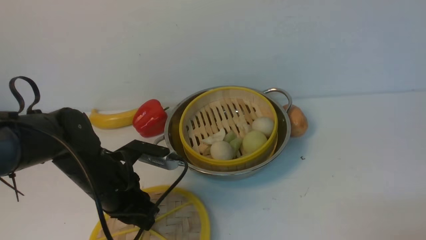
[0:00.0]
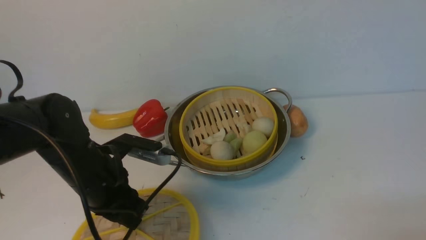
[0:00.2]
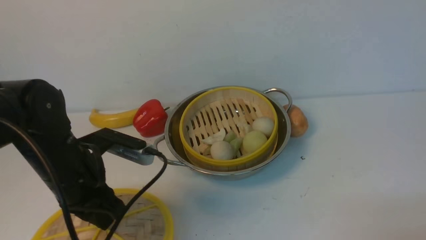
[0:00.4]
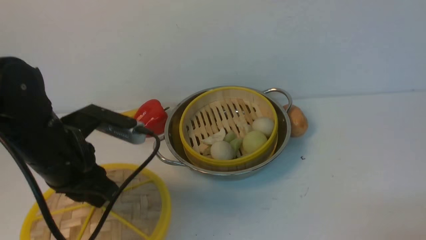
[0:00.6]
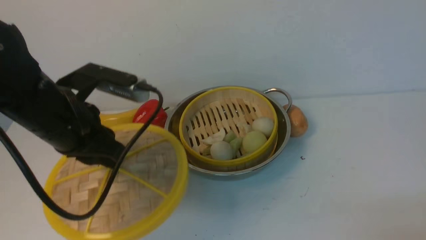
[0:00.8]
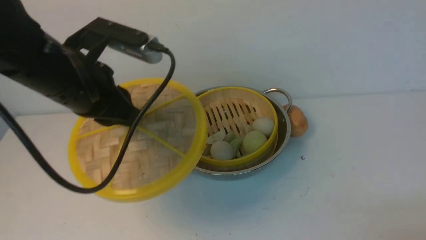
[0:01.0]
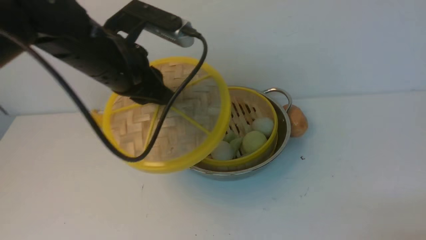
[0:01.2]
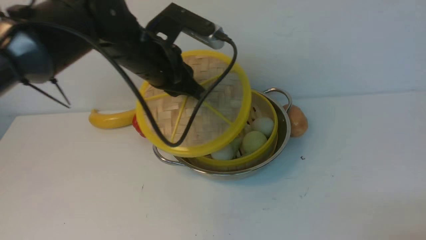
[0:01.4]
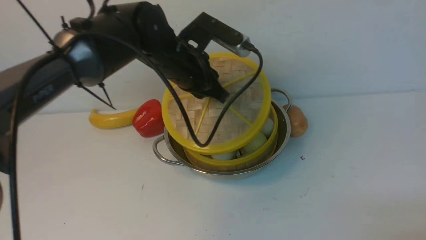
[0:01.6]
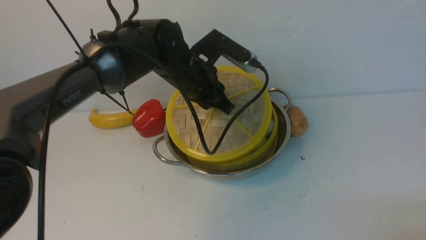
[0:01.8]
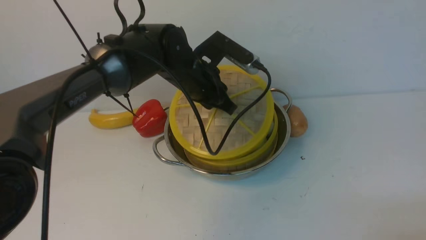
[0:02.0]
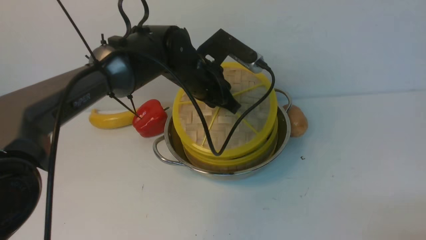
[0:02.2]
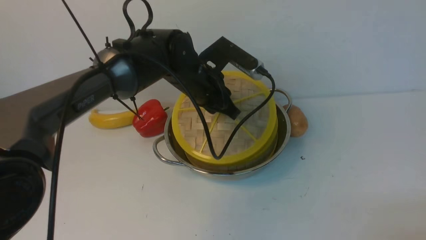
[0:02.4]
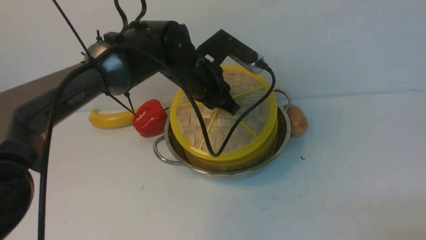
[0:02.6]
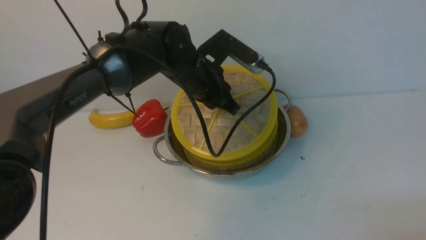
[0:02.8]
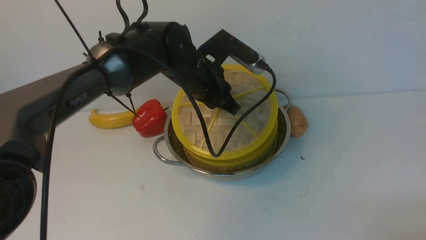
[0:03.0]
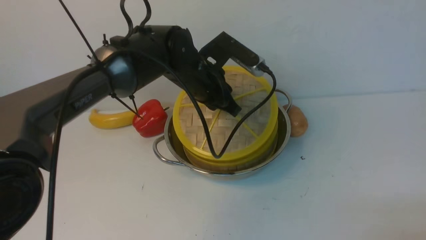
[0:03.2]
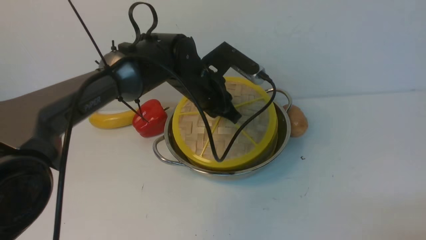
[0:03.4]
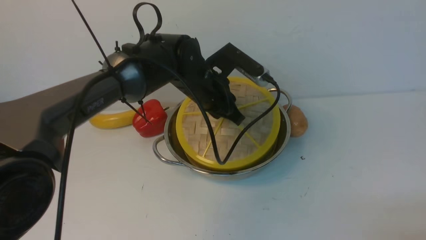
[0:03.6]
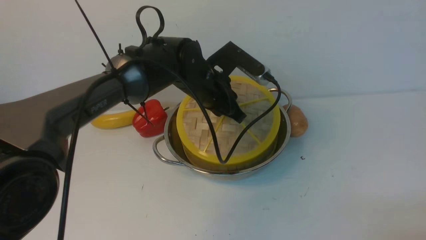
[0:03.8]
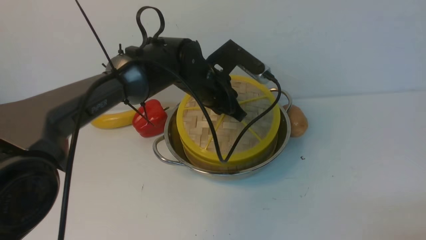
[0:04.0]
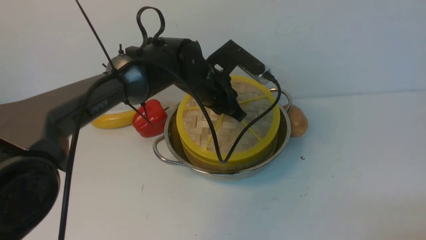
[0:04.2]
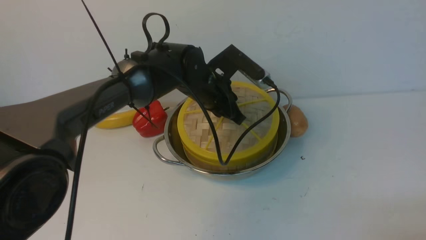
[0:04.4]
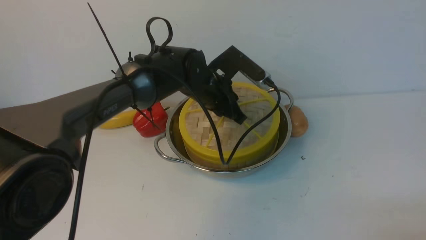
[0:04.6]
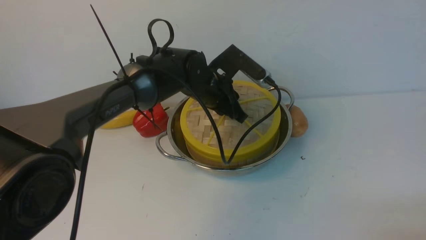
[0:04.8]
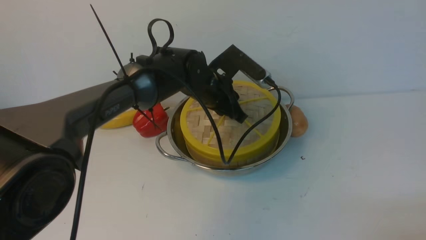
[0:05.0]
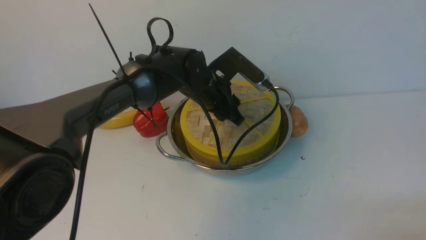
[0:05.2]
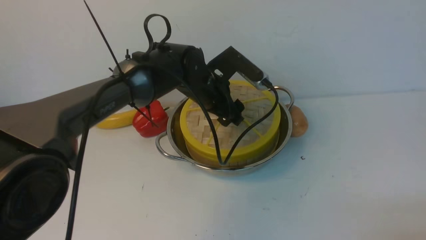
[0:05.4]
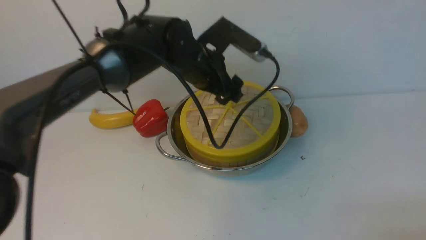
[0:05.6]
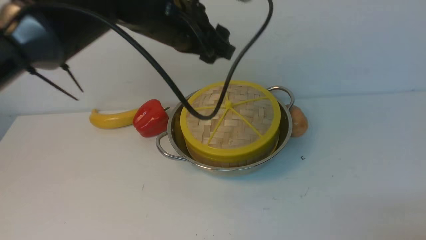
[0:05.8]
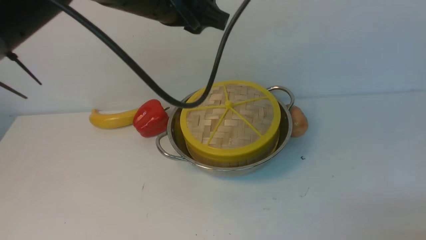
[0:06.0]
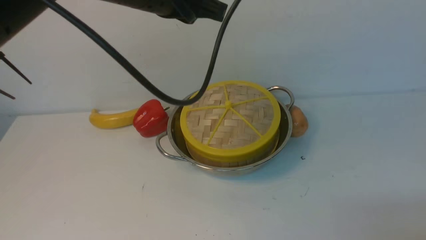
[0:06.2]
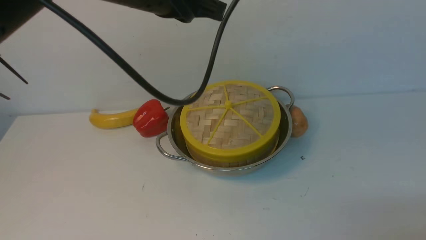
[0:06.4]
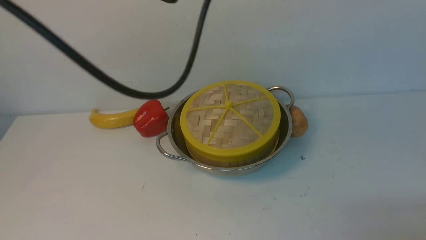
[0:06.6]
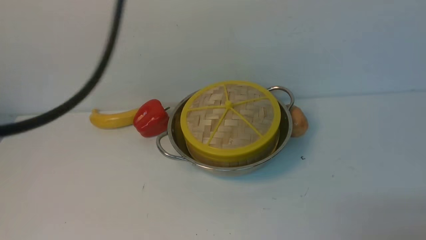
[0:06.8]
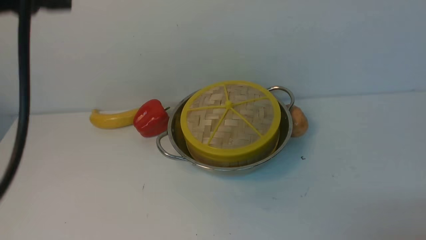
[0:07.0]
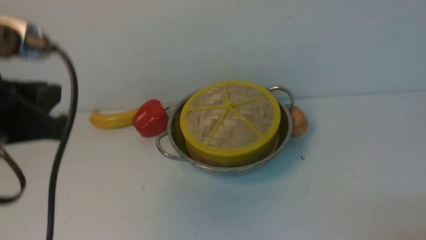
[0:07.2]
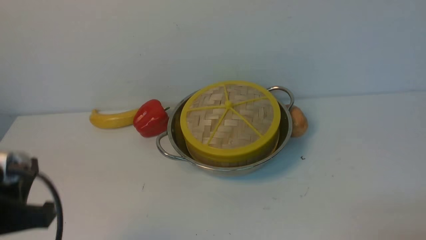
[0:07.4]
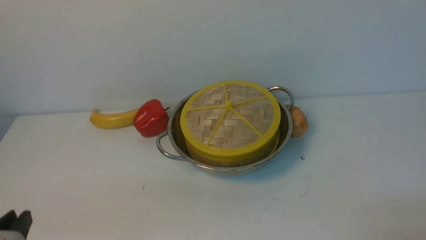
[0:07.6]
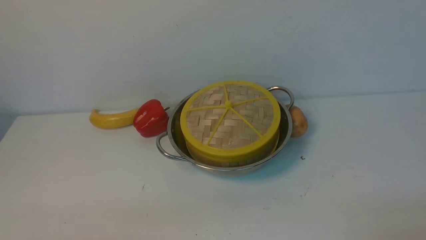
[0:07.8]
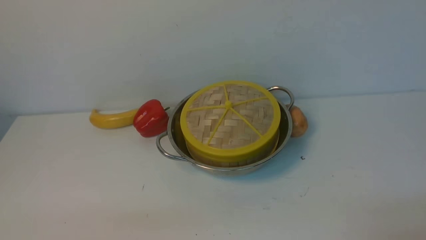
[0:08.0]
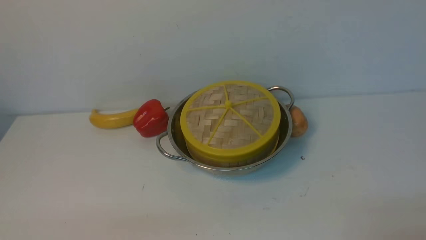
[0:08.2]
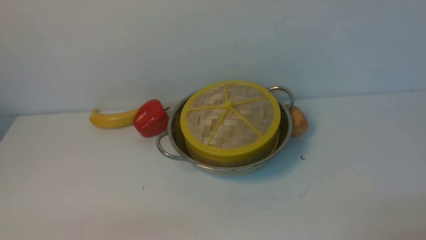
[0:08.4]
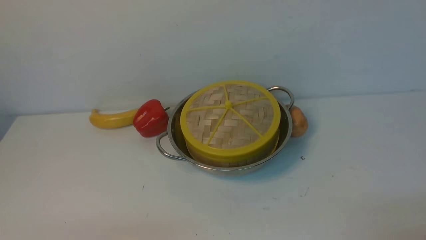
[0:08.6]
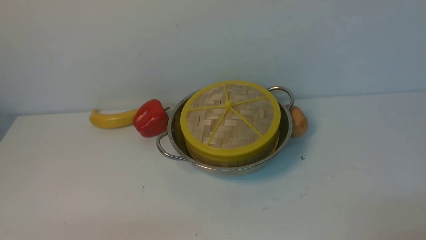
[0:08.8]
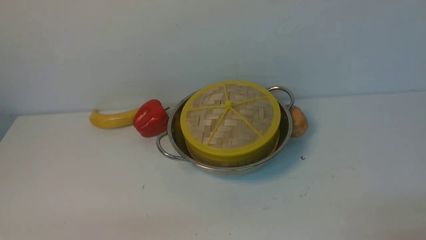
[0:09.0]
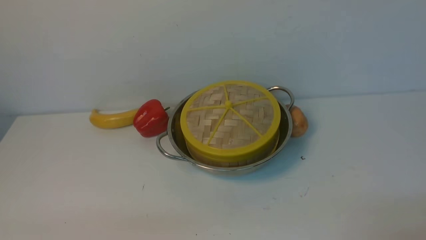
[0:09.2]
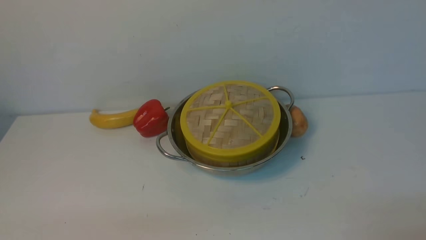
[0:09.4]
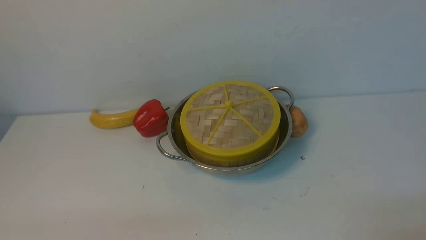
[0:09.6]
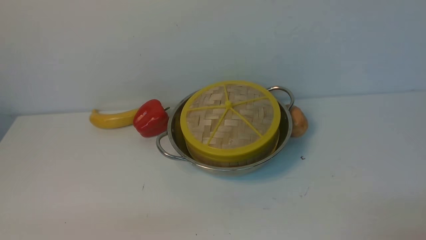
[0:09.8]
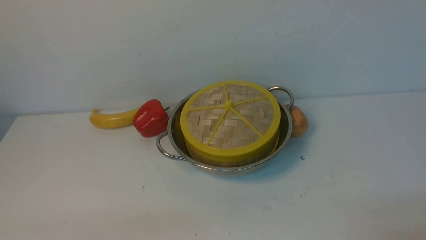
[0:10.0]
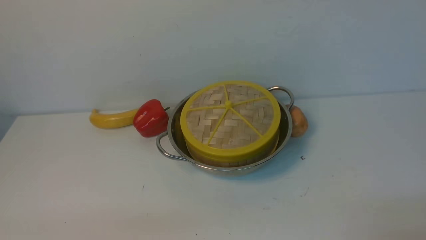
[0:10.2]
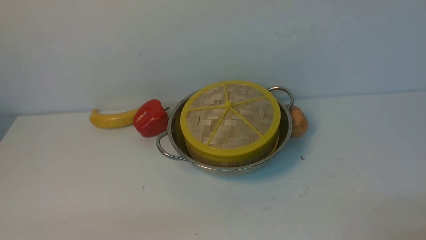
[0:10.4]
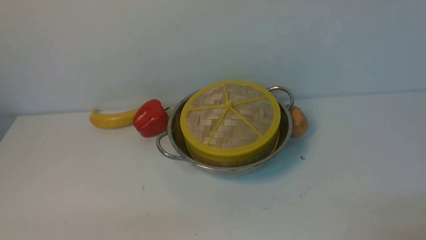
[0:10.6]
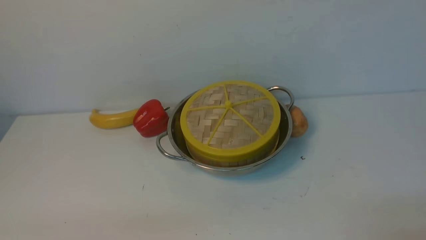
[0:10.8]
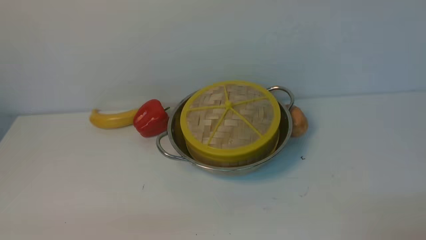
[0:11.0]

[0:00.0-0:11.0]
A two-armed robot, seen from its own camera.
Task of the whole recording: place the steamer in the pot on the white table, and put the lid on the steamer.
Step, 0:00.4 to 0:06.0: use the left arm to place the steamer lid on the steamer.
0:00.0 to 0:01.6: The left gripper shifts approximately 20 cm forward, to the right and upward.
0:04.8 to 0:06.2: The left gripper goes approximately 25 cm upward and backward, and opens, then closes again.
0:06.2 to 0:07.8: The left gripper travels backward, downward and to the left by about 40 cm.
0:09.4 to 0:11.0: Both grippers stay about where they are.

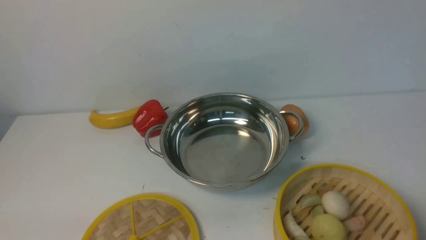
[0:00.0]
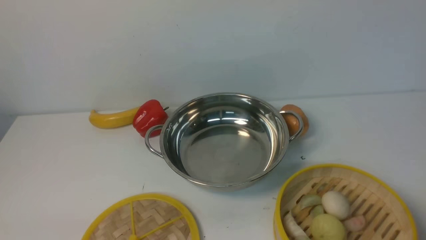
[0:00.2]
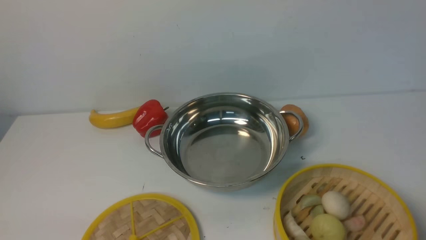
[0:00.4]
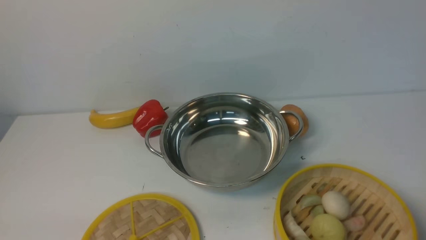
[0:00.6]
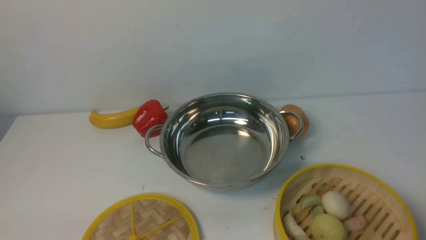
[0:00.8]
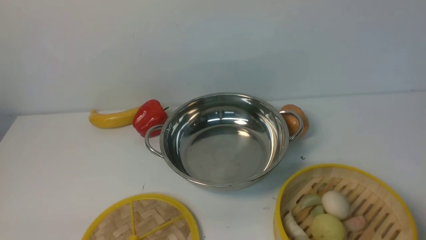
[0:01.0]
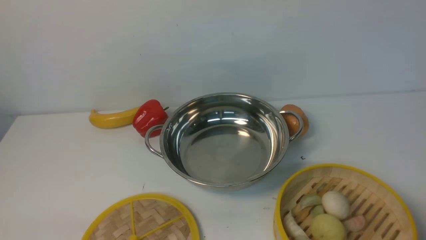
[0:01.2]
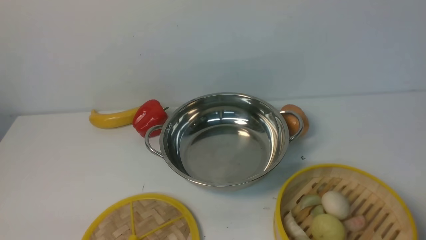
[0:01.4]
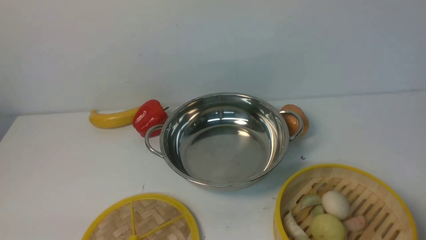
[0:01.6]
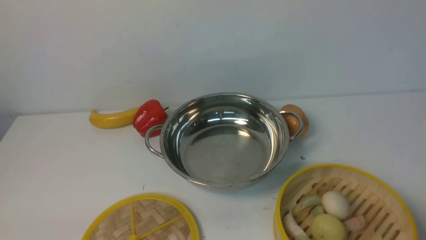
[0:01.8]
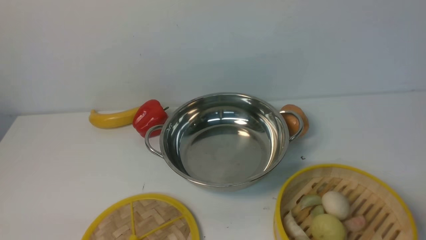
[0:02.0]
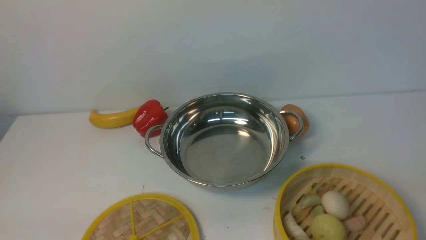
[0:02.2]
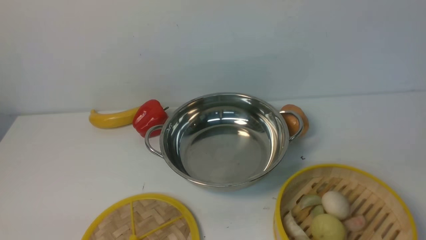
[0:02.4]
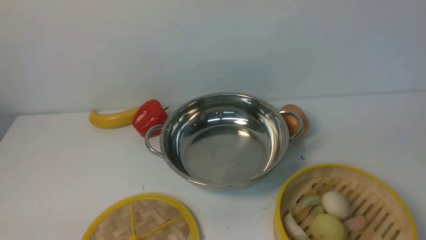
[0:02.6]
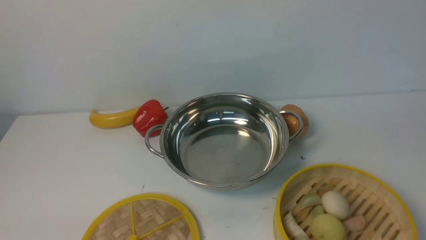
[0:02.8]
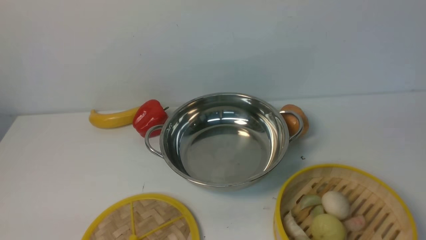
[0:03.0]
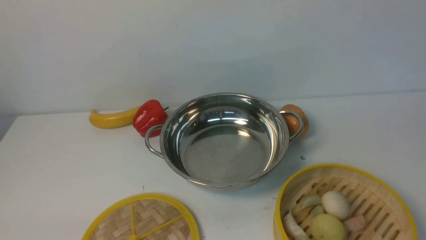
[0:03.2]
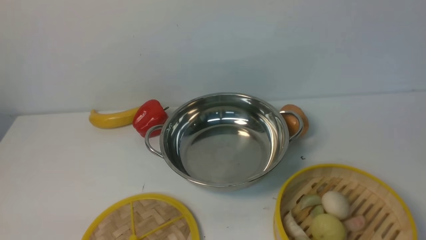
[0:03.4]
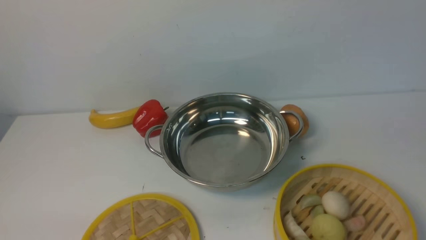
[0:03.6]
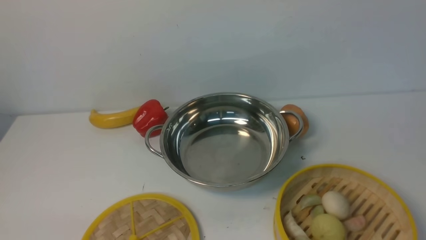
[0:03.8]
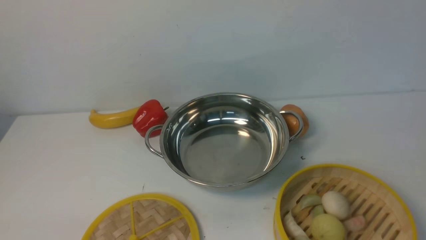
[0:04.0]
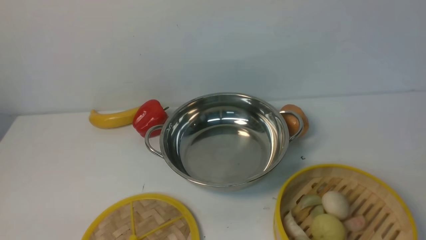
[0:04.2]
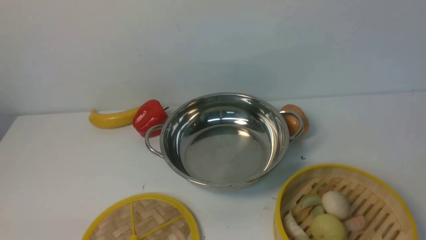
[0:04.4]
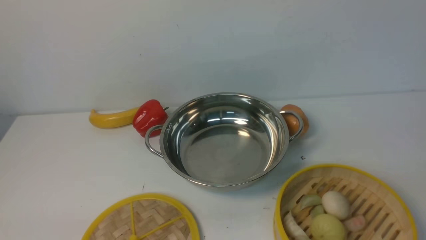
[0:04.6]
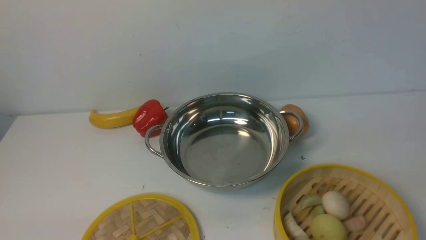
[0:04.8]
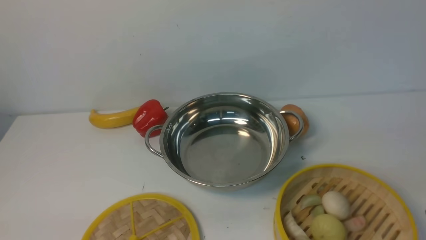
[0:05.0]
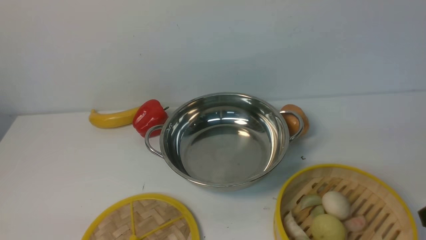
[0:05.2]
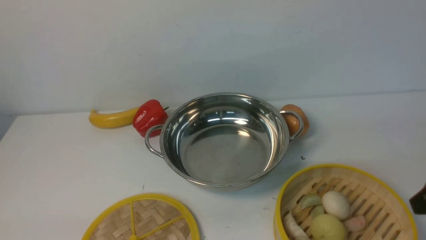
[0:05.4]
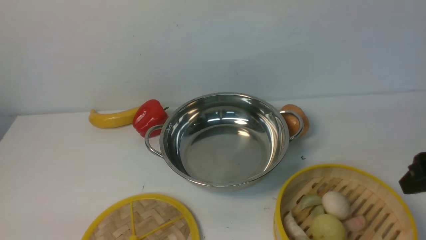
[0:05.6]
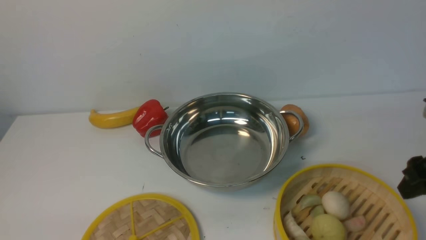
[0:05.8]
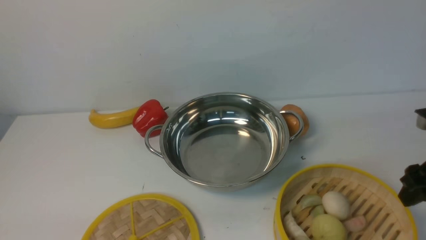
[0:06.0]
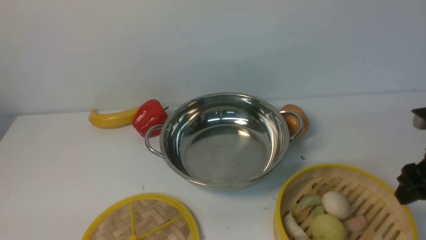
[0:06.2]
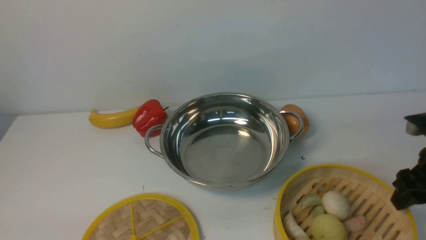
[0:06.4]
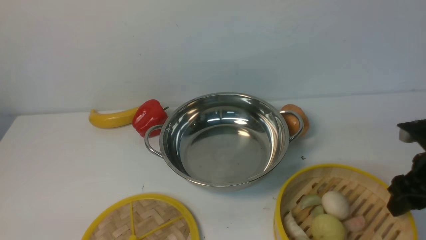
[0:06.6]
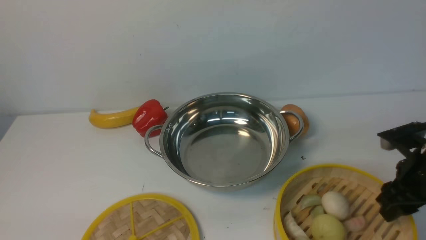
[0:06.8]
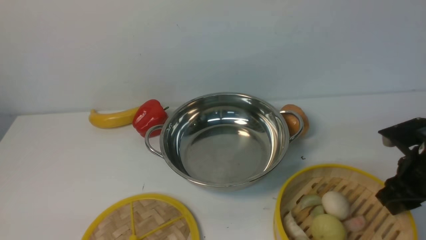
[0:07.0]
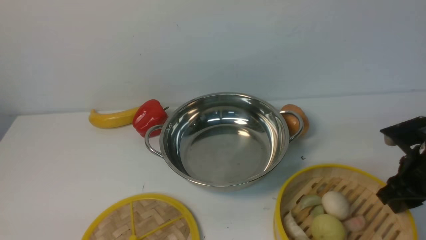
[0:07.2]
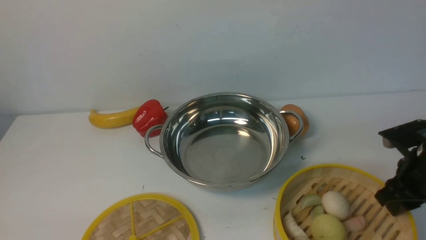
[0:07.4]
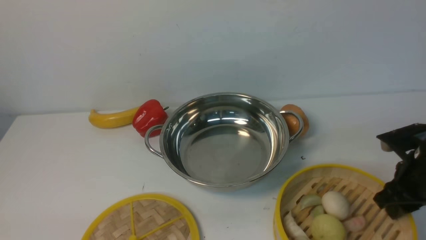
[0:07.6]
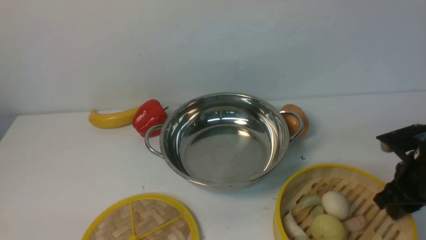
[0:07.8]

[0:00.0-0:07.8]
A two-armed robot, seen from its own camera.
Task of the whole recording: place the steamer in the pot on the white table, and put the lid on the steamer.
0:00.0 to 0:01.6: Both grippers stay put.
0:04.6 to 0:06.2: The right gripper goes roughly 20 cm forward and downward.
0:06.2 to 0:07.8: The right gripper moves downward, about 5 cm, and closes its fingers.
